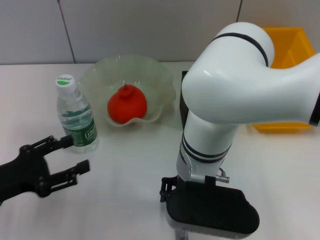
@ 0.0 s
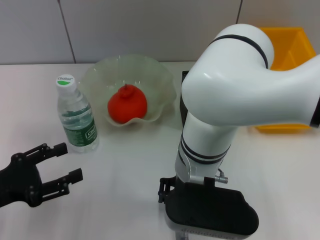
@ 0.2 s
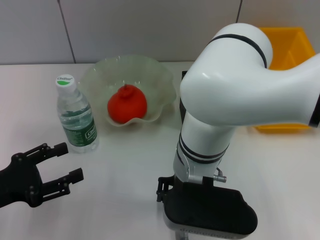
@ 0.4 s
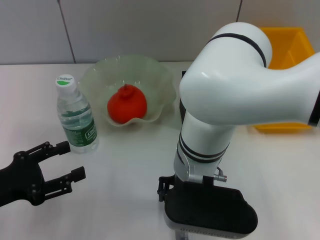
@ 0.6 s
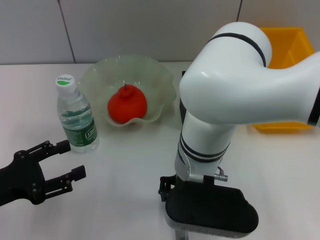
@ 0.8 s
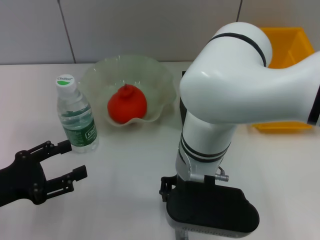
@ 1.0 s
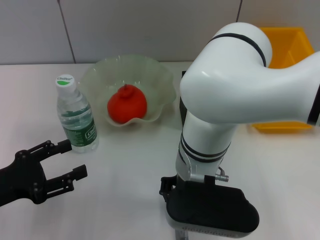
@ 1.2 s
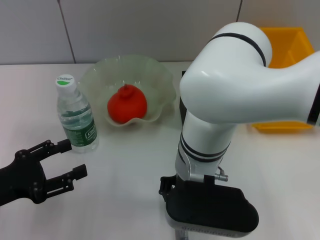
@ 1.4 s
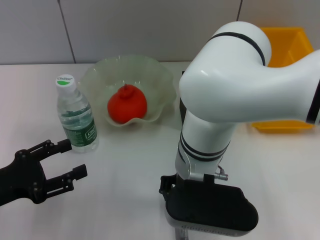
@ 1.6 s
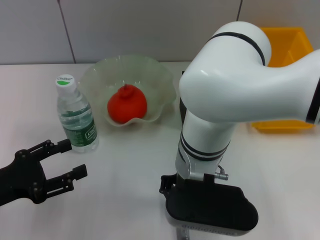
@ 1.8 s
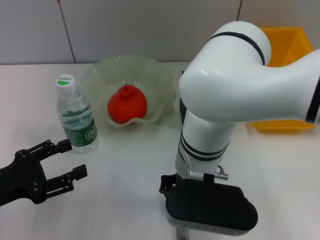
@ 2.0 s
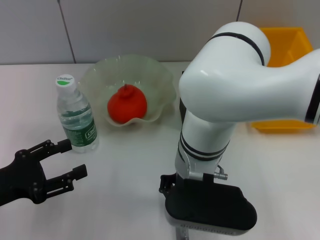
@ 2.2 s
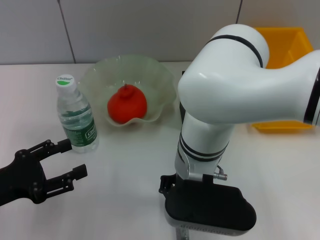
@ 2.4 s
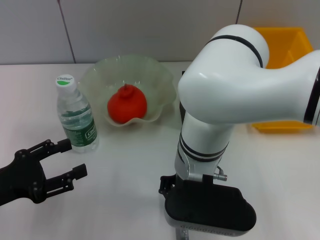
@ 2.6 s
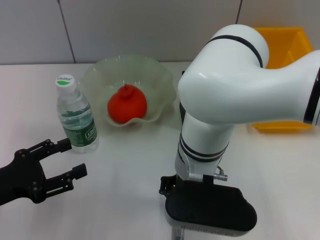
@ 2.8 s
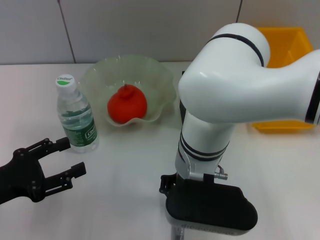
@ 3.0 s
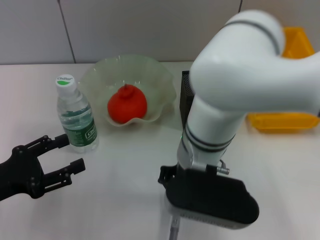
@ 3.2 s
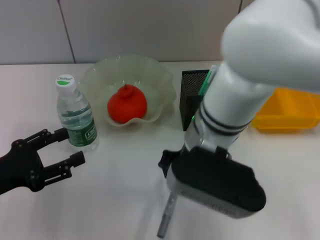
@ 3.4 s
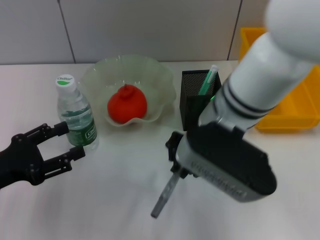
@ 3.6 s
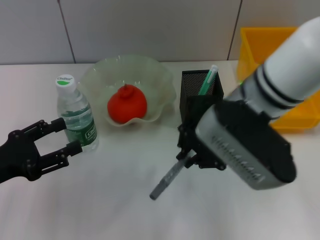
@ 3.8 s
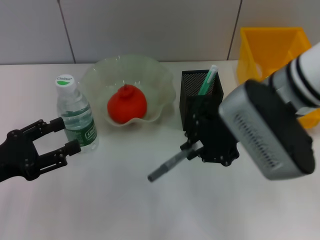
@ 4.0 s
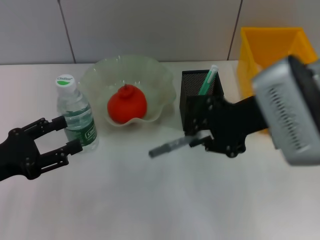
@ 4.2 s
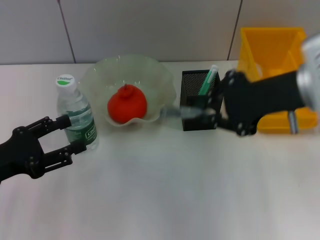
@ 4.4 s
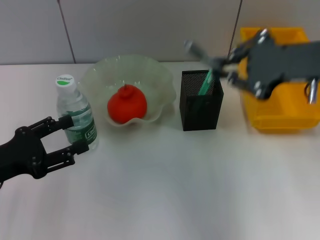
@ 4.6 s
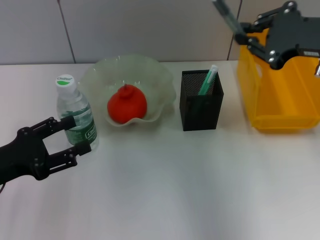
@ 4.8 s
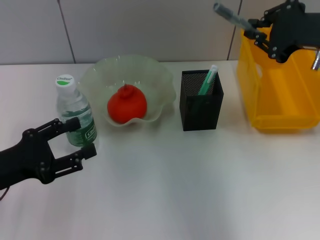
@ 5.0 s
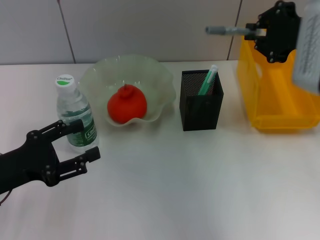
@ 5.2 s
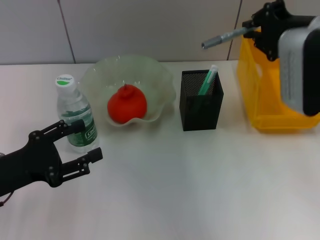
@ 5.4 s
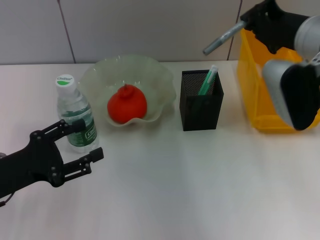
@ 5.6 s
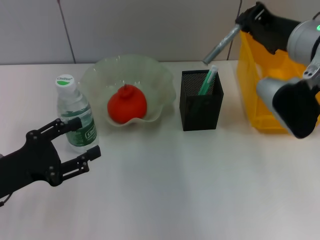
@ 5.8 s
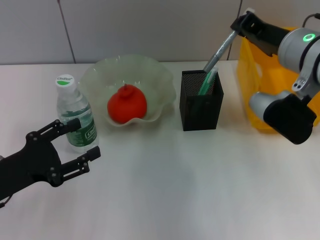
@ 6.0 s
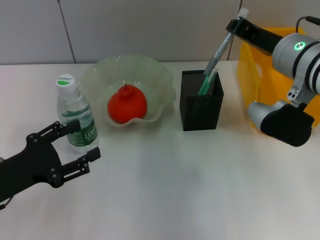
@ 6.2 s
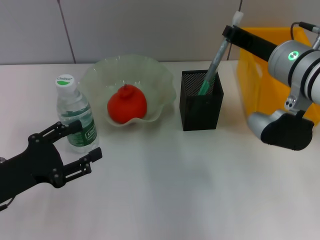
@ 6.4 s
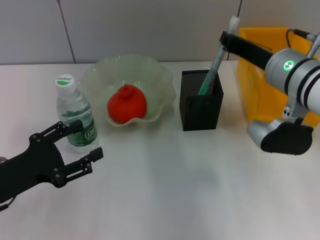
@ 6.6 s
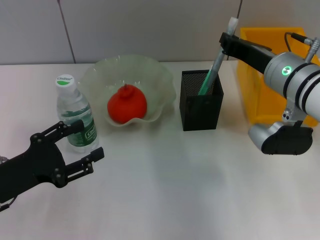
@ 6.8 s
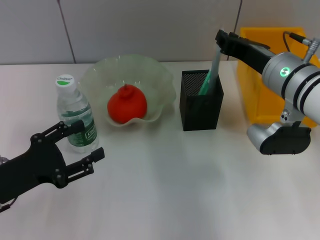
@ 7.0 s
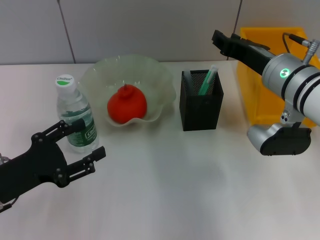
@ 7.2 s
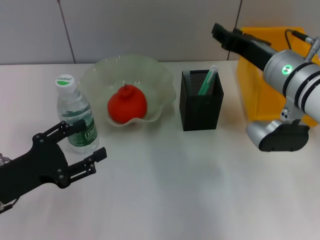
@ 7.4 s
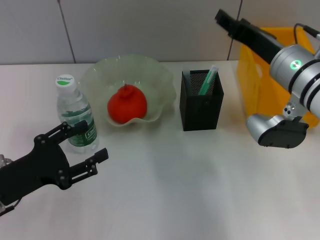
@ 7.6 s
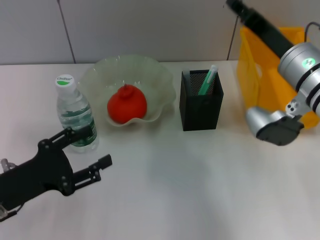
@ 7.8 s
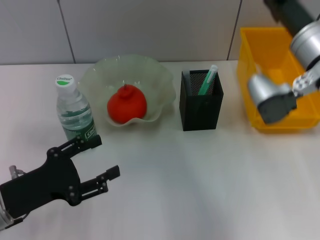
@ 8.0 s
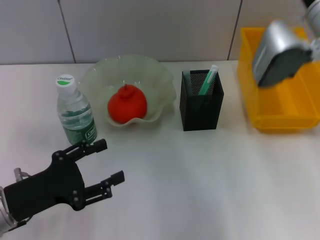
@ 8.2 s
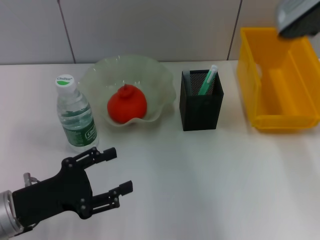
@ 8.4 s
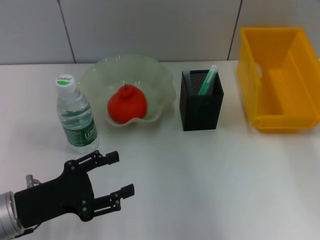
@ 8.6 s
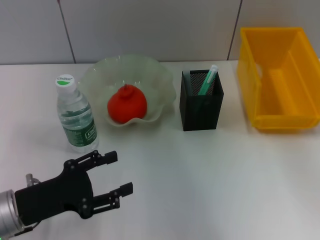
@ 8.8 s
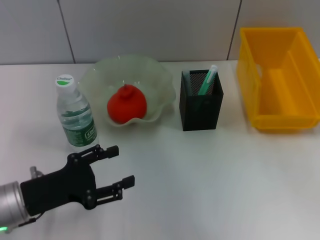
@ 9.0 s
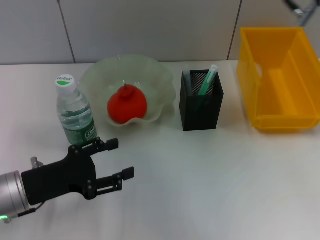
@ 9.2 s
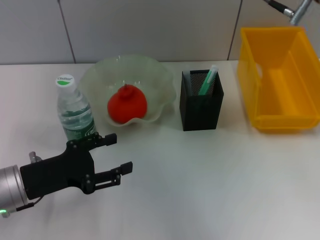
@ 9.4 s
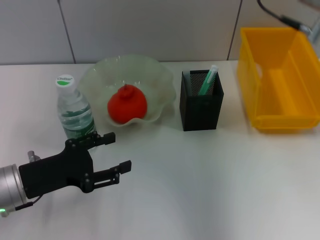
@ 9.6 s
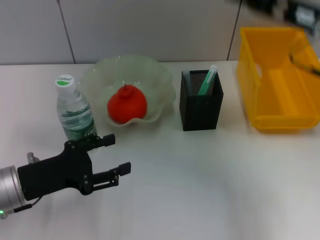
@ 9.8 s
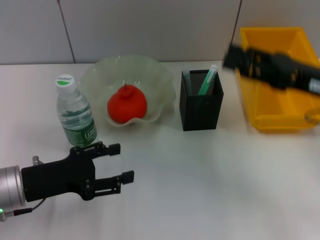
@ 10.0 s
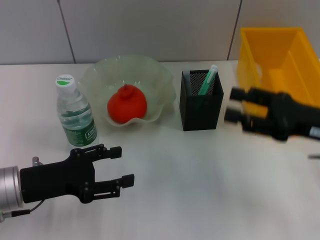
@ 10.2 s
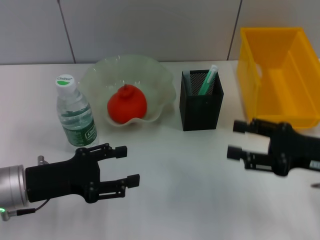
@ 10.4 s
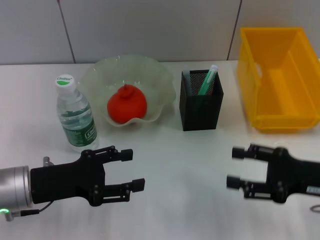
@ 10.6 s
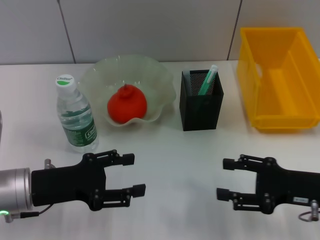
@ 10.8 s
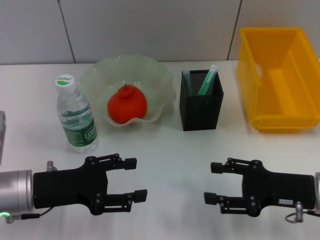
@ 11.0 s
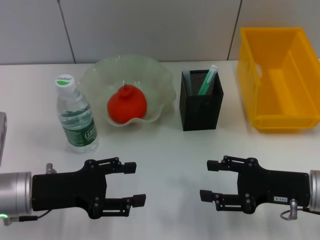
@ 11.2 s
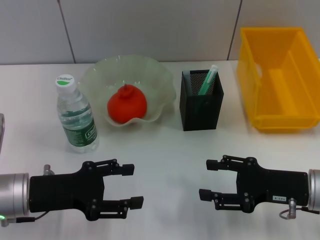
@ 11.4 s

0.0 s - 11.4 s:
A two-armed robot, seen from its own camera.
Step, 0.0 s - 2.8 s: Grab the gray glue with the right hand.
Step, 3.0 s - 7.4 s: Place the gray glue into the pen holder with the right hand.
0.0 s - 2.8 s: The two grippers keep their place.
2.8 s - 4.2 s: The right gripper heads to the right and upward, covering roughly 15 cm.
4.2 s - 5.6 s: The right gripper is displaced forward by approximately 5 cm.
5.6 s - 7.2 s: The right gripper travels downward by approximately 5 cm.
7.2 s - 8.6 s: The right gripper heads upward and to the right, covering approximately 10 cm, and opens.
8.6 s - 10.0 s: The right gripper heads downward and backward, covering about 10 cm.
10.0 s - 11.4 s: The right gripper is displaced downward and backward by approximately 10 cm.

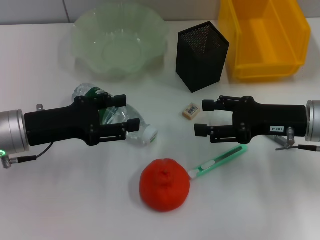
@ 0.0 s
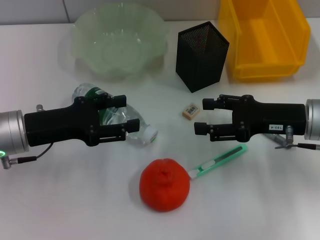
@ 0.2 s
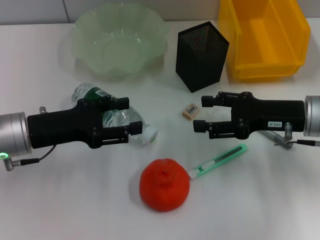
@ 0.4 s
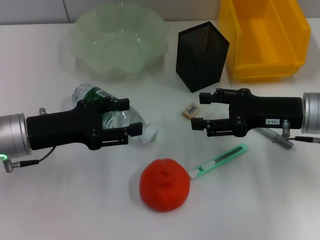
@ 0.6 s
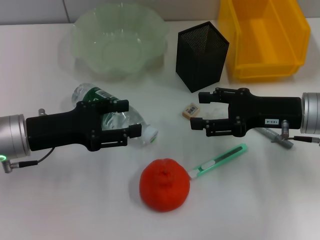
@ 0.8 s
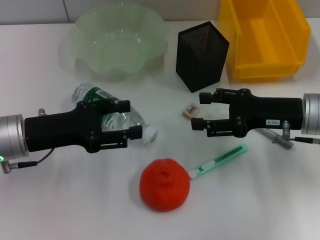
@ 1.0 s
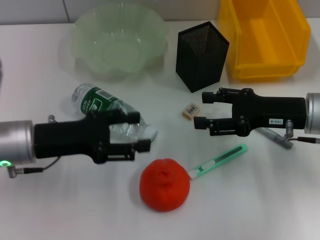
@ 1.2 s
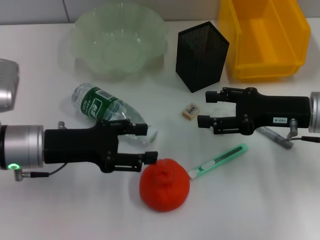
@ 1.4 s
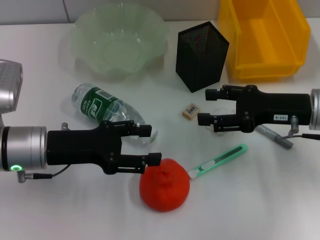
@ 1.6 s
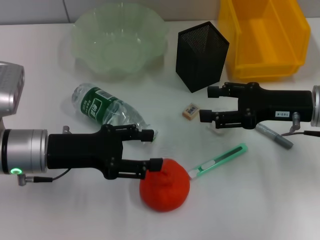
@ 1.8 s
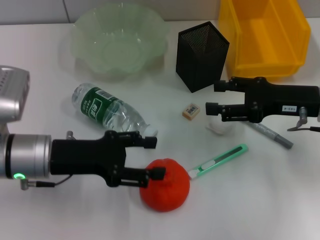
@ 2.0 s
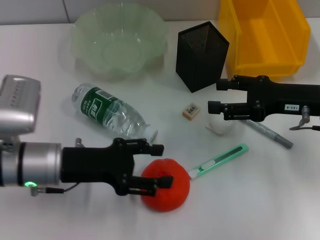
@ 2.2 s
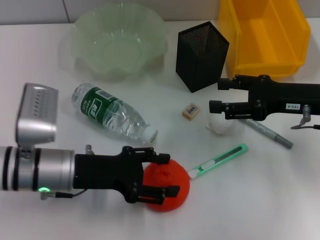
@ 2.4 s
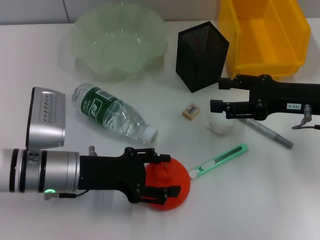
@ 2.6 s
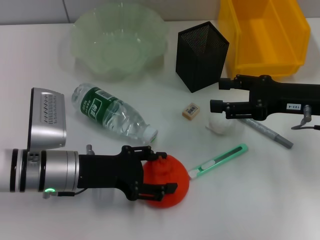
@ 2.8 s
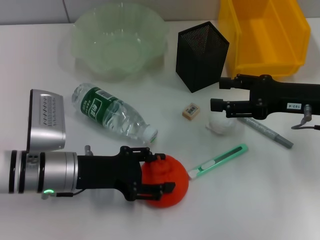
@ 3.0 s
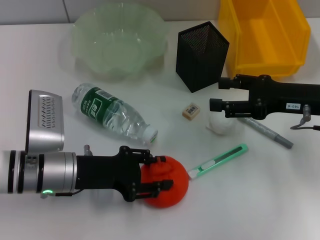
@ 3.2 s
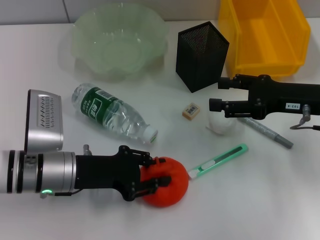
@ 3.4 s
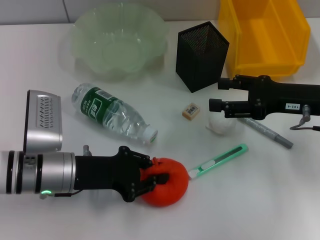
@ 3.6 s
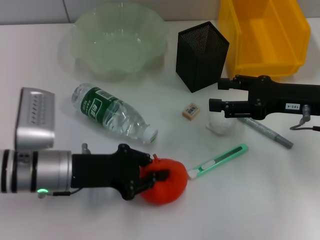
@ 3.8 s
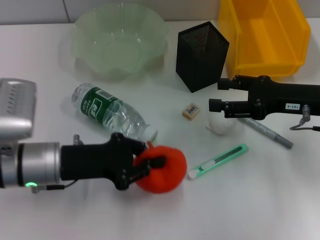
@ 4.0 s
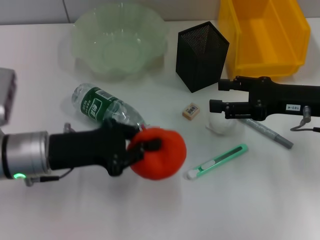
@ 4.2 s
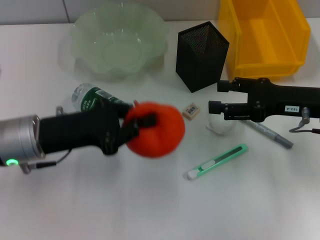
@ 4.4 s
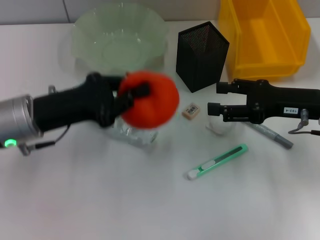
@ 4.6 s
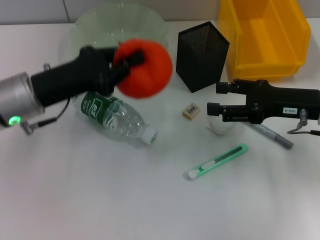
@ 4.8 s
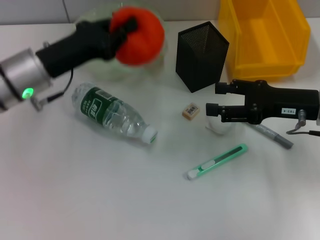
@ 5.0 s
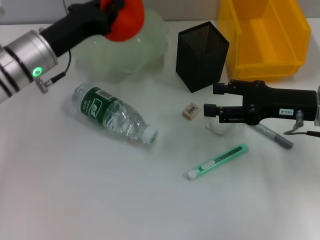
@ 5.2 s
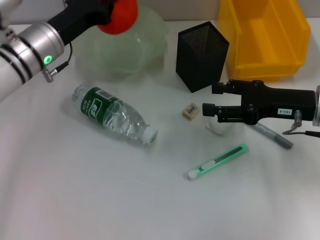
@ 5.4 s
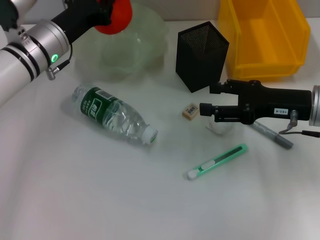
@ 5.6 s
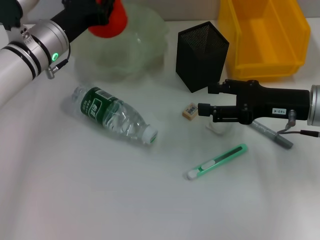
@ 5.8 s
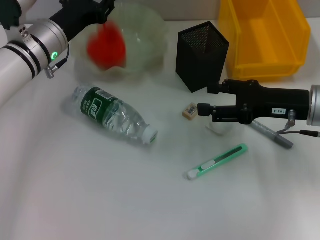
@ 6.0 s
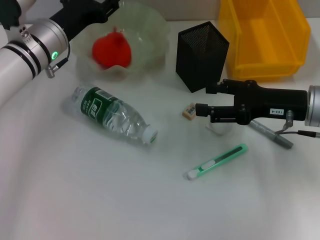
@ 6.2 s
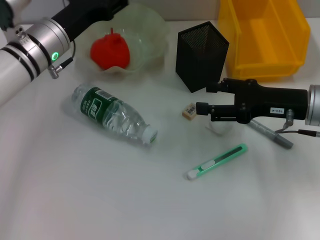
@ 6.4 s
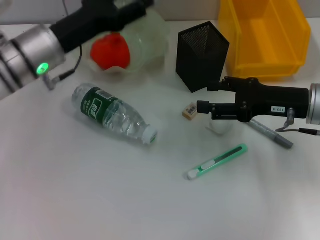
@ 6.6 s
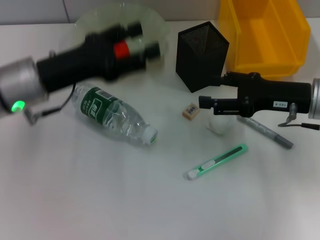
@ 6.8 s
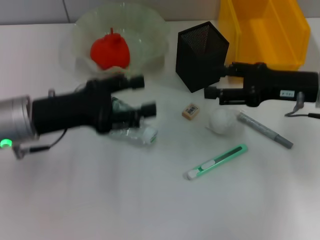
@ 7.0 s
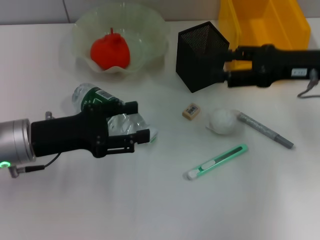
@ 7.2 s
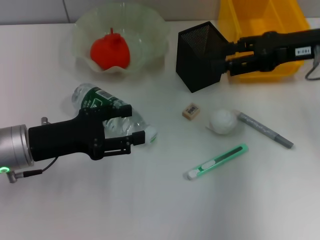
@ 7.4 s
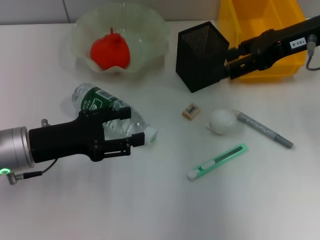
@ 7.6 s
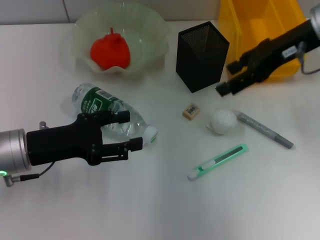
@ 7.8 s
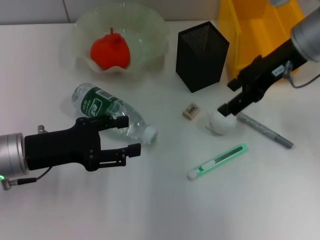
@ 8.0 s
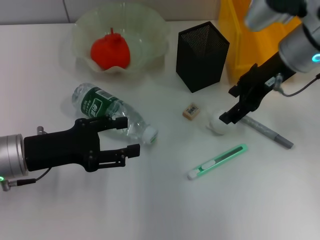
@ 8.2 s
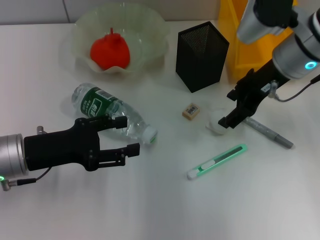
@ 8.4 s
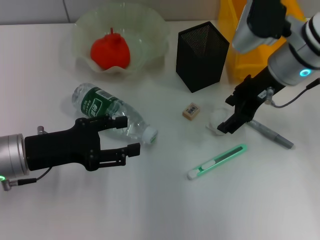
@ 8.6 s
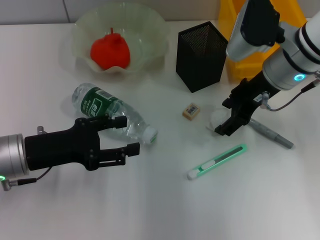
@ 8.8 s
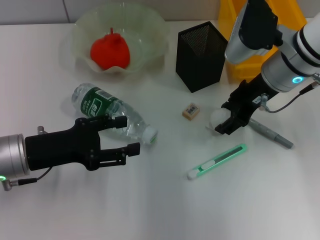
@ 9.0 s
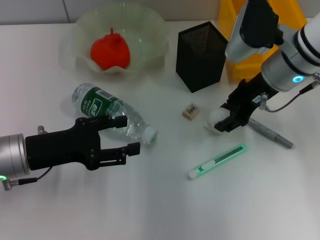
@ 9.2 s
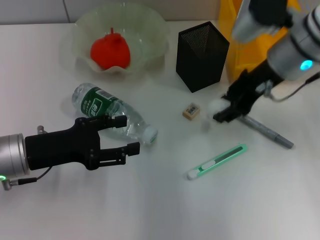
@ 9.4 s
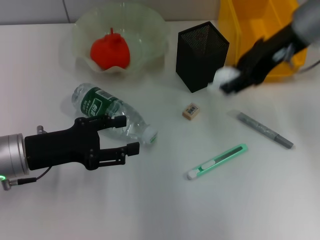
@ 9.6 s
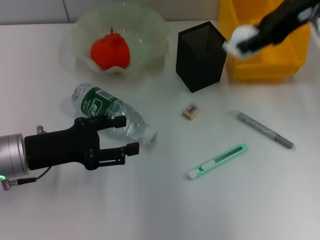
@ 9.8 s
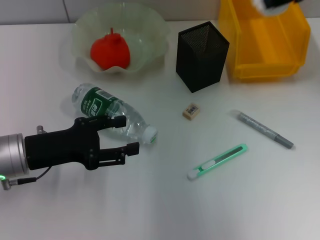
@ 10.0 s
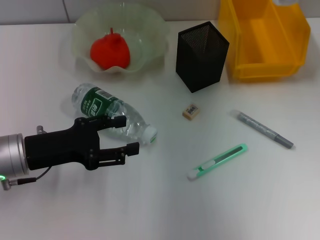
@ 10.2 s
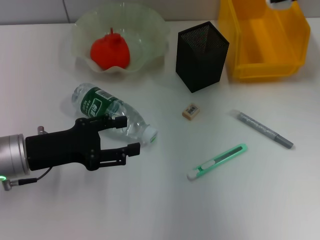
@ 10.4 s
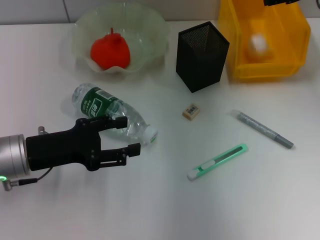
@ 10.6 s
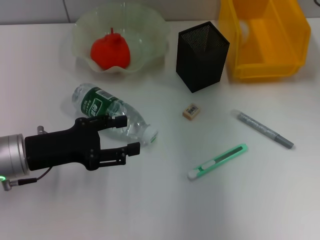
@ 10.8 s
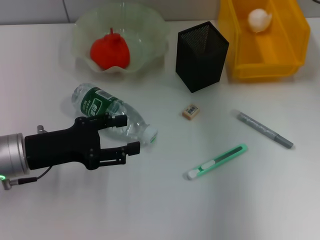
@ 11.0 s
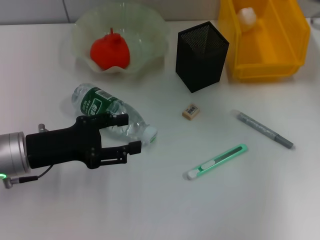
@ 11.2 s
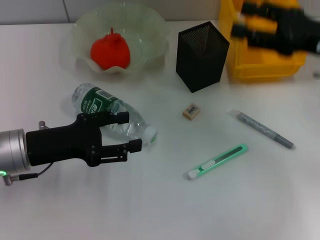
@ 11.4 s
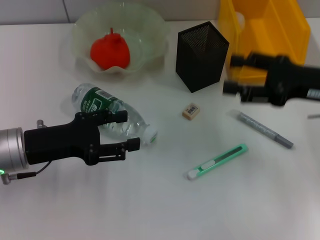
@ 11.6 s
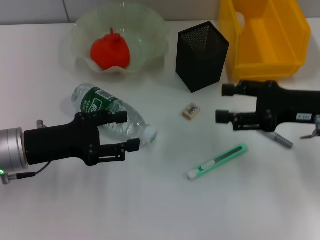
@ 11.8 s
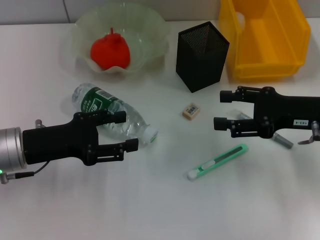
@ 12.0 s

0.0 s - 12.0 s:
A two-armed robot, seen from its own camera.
Step, 0.0 s - 3.4 s: Grab the orange with the left hand.
Step, 3.6 s - 6.0 s: Place the orange into the fruit bowl with the left hand.
Step, 6.2 s - 9.0 s: Grab the paper ball with the right hand.
Step, 9.2 s - 11.0 s: Place the paper ball into the trash can with the right hand.
0.0 s - 1.6 s: The grippers move only a little.
1.6 s - 3.0 s: The left gripper changes place by some 5 cm.
3.0 s - 4.4 s: The left gripper travels upward by about 5 cm, and closes.
4.4 s - 6.0 s: The left gripper goes roughly 15 cm forward, and opens.
6.0 s - 7.6 s: The right gripper goes some 15 cm upward and forward. Meanwhile the left gripper travels backward by about 15 cm, and opens its fingers.
7.6 s - 9.0 s: The right gripper shifts some 10 cm downward and to the left.
9.0 s - 10.4 s: The right gripper shifts roughly 15 cm to the right, upward and forward.
10.4 s - 12.0 s: The right gripper travels backward and downward by some 20 cm, and opens its fingers.
